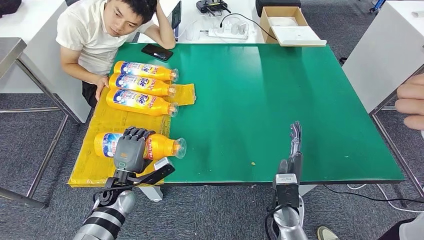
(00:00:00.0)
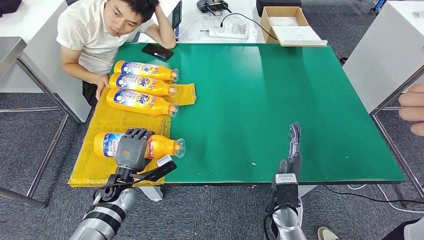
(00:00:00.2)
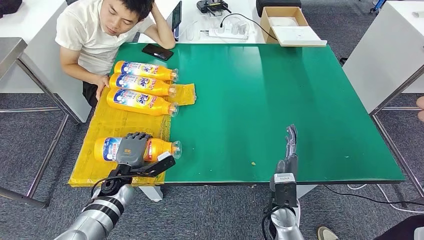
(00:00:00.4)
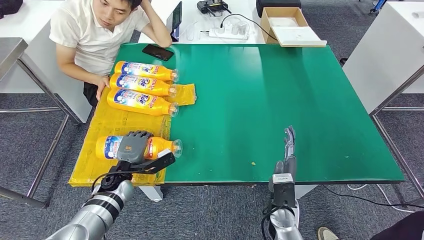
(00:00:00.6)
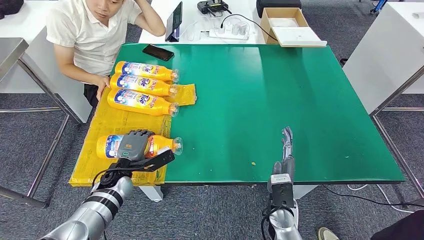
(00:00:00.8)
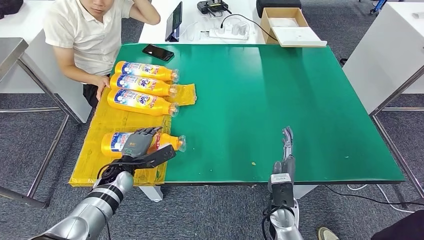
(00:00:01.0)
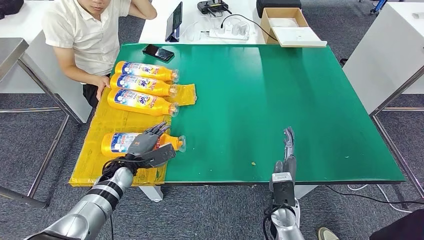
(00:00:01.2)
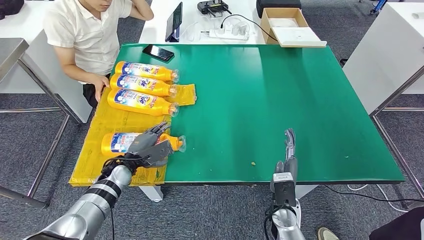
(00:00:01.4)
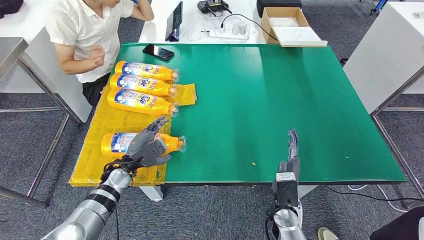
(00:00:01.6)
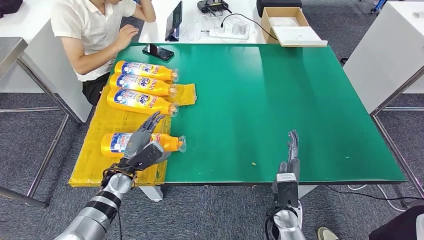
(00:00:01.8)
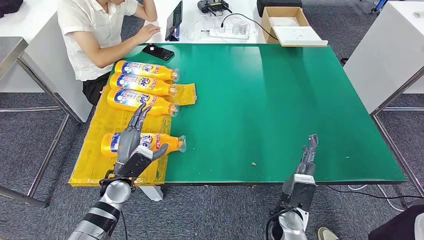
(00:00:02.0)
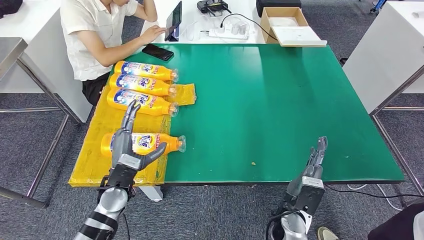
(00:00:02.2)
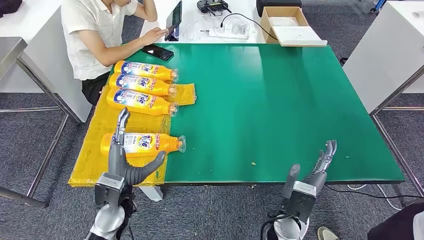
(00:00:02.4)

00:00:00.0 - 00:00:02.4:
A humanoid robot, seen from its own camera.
Step, 00:00:00.0 - 00:00:02.2: Flip the bottle to face forward.
00:00:00.0 - 00:00:01.2: The left hand shifts some 5 cm forward.
00:00:01.2 - 00:00:02.4: The left hand goes some 10 cm backward and upward.
